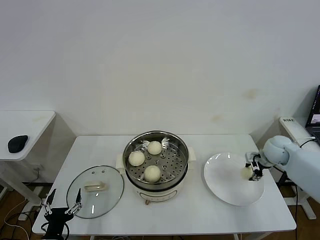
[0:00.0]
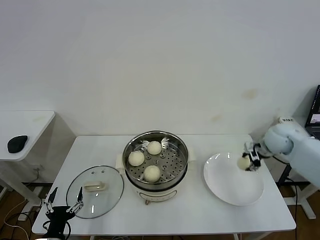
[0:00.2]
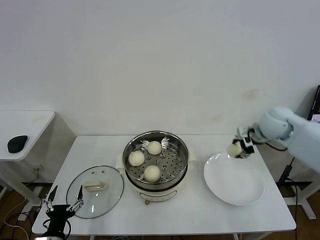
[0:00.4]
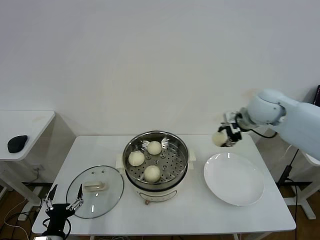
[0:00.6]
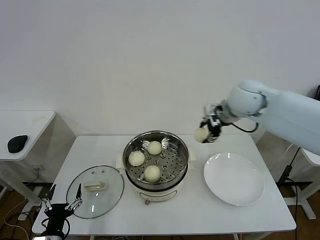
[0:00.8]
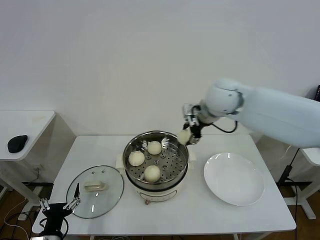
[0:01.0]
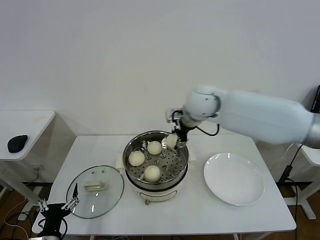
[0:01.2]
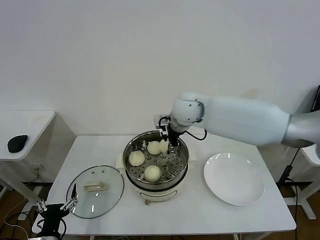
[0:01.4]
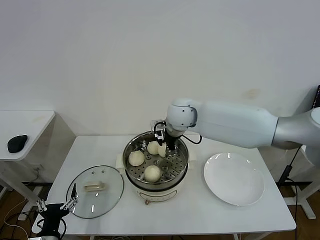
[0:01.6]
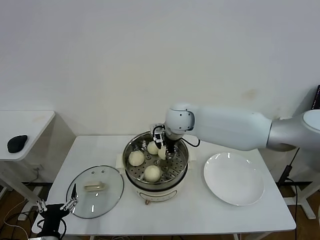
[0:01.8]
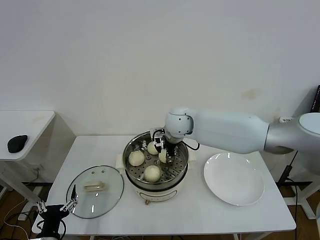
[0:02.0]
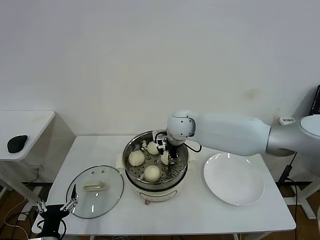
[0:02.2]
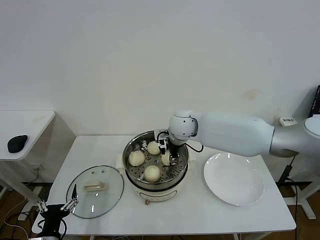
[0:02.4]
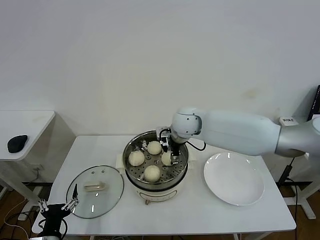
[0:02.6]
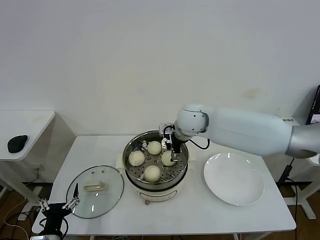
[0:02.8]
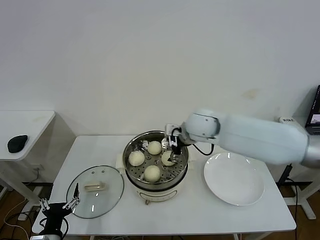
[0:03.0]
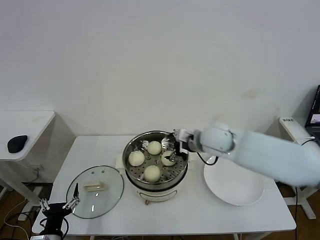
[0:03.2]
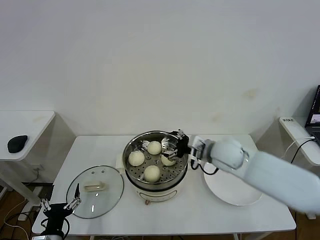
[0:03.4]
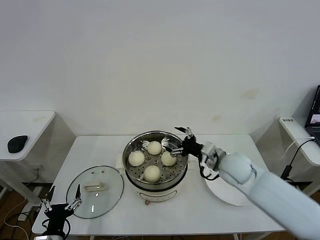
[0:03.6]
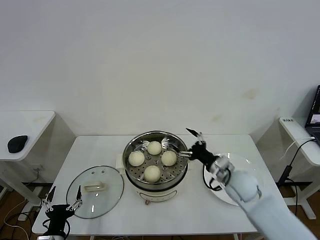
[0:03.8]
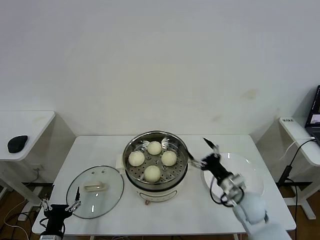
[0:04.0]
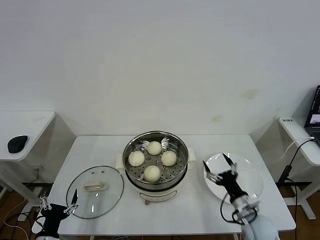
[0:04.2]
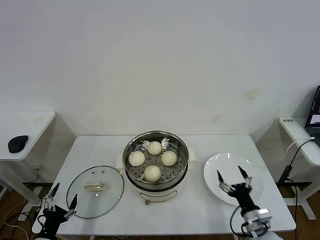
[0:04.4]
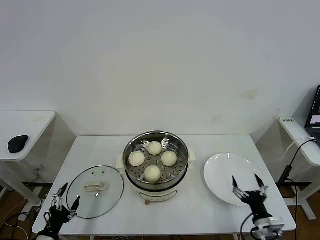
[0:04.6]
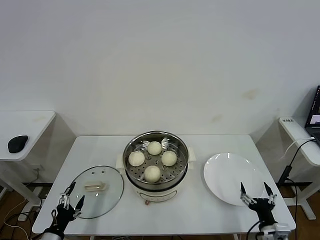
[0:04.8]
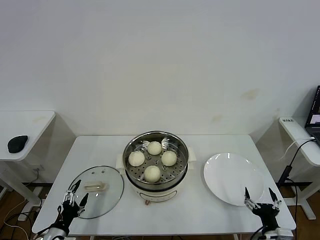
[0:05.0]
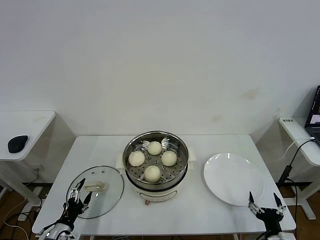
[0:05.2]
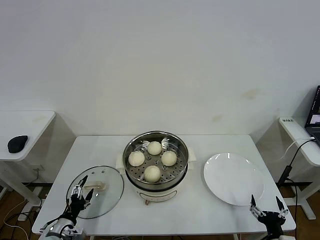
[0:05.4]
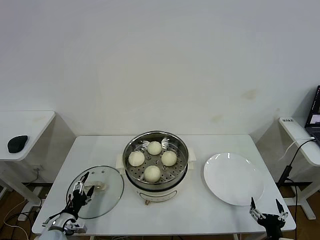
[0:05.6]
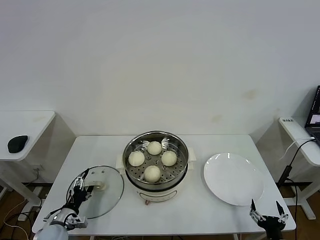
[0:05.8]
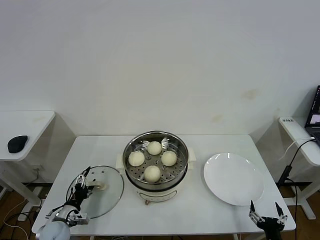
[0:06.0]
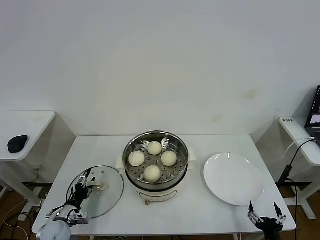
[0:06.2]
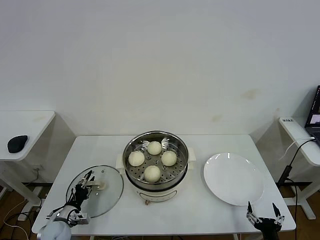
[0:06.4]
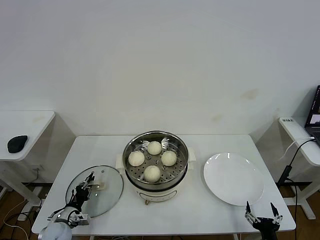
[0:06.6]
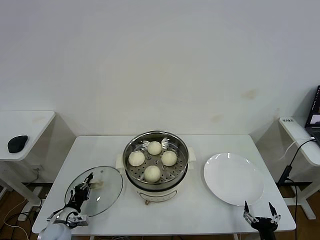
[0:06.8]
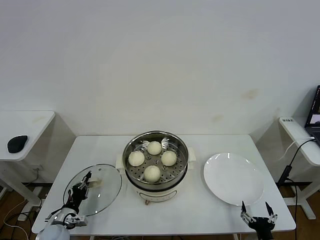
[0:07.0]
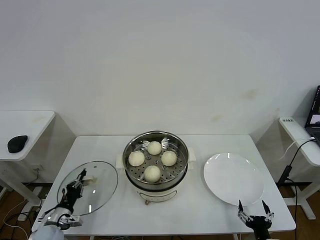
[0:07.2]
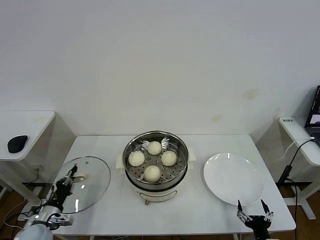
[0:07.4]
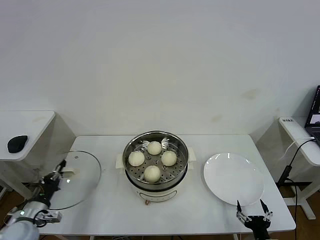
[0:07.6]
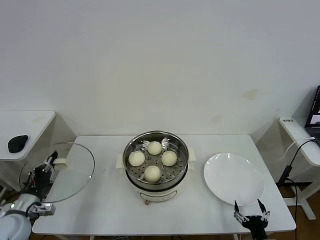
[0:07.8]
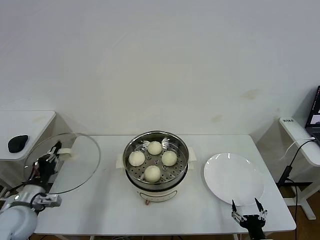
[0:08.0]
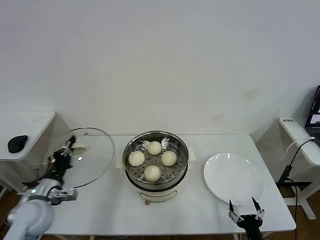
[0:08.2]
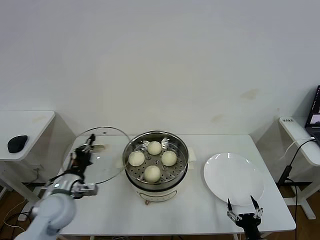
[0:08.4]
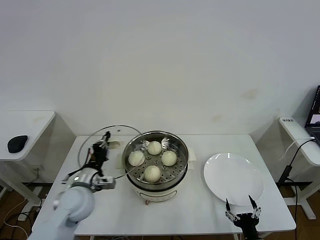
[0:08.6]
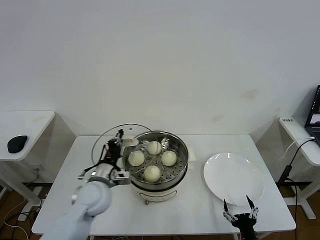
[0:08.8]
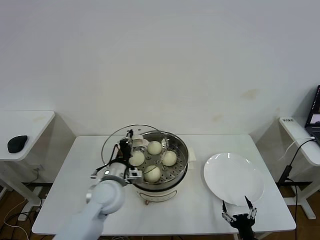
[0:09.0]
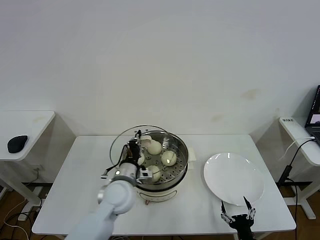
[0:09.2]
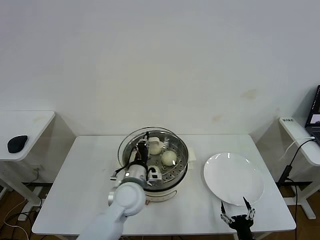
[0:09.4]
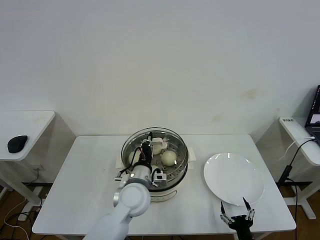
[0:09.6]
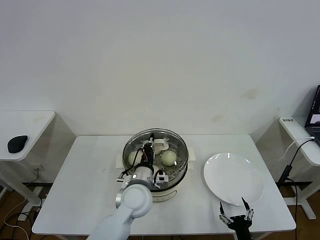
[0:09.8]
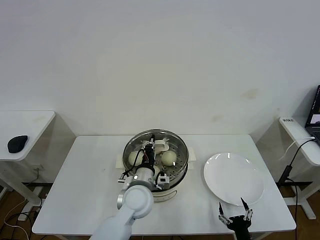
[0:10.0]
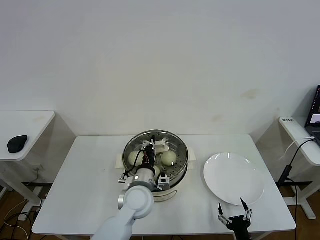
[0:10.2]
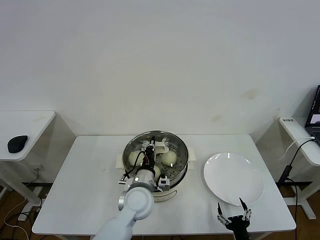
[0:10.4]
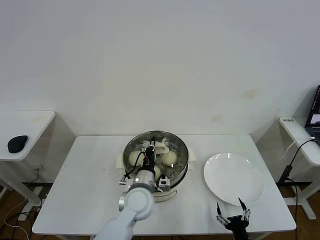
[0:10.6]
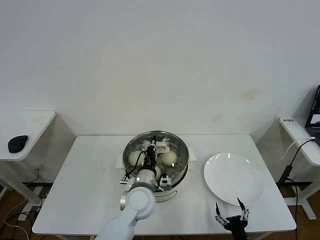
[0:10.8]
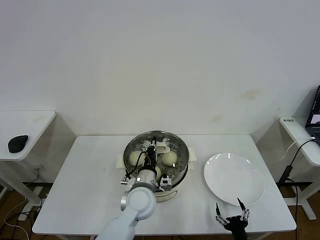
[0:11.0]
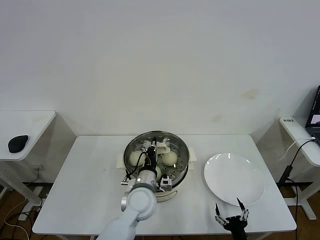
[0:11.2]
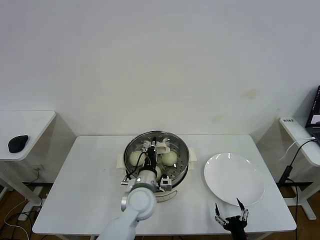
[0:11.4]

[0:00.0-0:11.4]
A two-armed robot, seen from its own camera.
Step, 0:00.0 to 0:02.4: Place the baozi on the steamer with right gripper.
Step, 0:02.6 to 0:06.8: Grasp the pot lid with left gripper.
0:00.0 to 0:01.4: The right gripper shifts roughly 35 cm to the left and upward.
0:01.4 to 0:02.8: The right gripper opens up.
0:02.8 to 0:04.2: The right gripper moves downward, backward and to the right, about 40 cm.
0:04.2 to 0:05.6: The right gripper goes approximately 15 cm backward and to the right. The left gripper is displaced forward and downward by about 10 cm.
0:05.6 to 0:07.2: The left gripper closes up.
0:07.2 to 0:08.6: The left gripper travels upward and to the right by about 20 cm.
0:08.6 to 0:10.0: The left gripper is displaced to the right by roughly 20 cm.
0:10.0 to 0:11.4: The grippers move only a little.

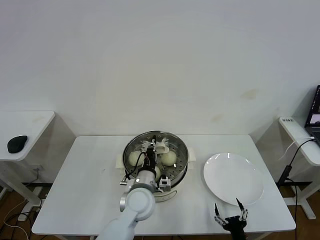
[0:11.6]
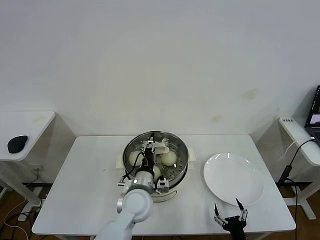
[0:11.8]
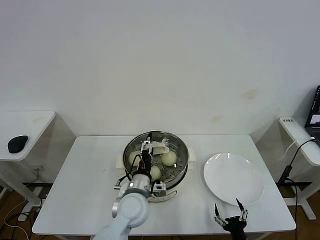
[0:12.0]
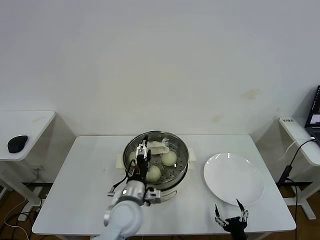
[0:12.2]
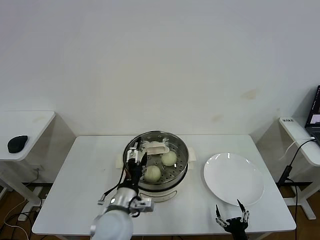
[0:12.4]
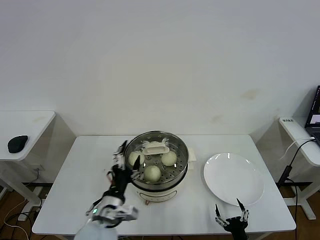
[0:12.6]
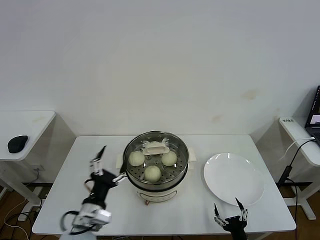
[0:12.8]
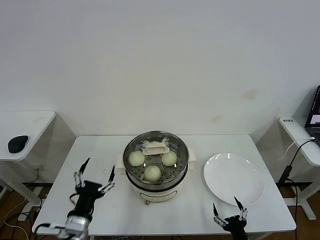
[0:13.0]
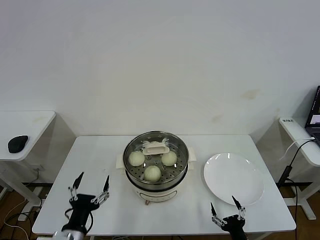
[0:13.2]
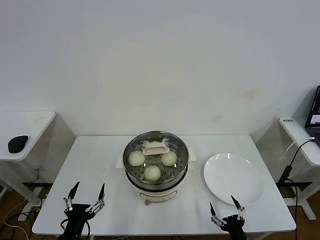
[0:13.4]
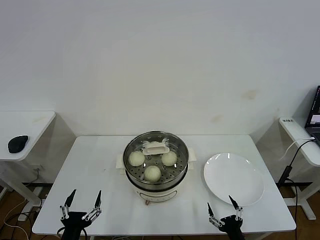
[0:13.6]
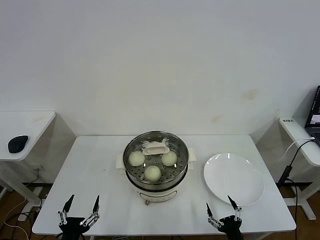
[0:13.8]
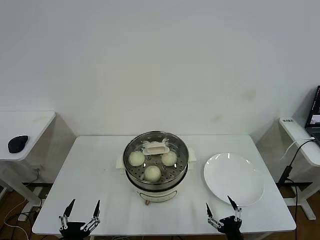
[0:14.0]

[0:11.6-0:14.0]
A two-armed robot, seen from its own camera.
0:11.6 to 0:12.8: The left gripper goes some 20 cm to the left and backward, and opens up.
0:12.8 to 0:14.0: The left gripper is displaced backward, downward and to the left by roughly 15 cm.
